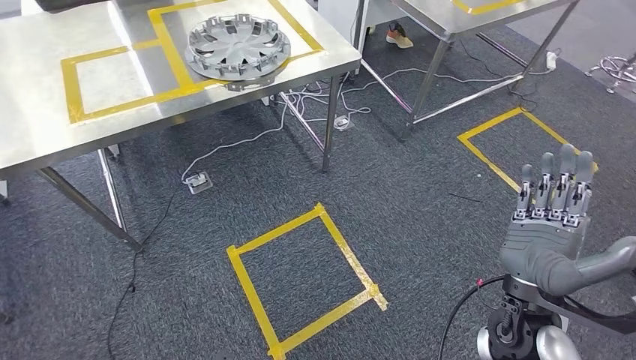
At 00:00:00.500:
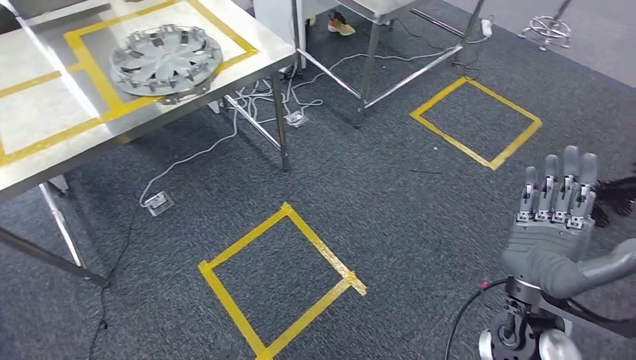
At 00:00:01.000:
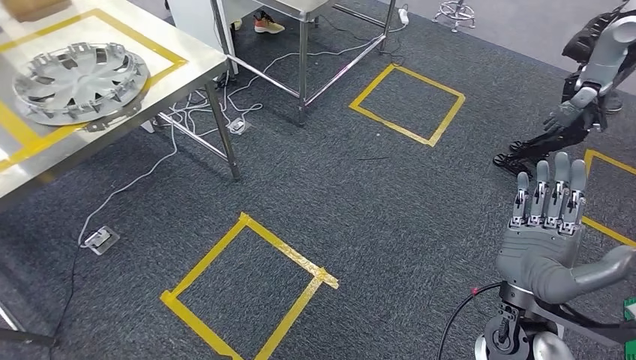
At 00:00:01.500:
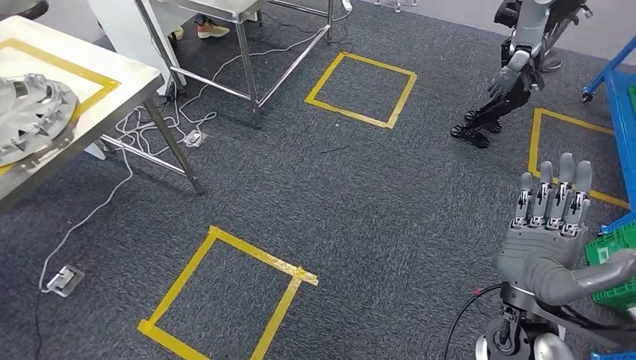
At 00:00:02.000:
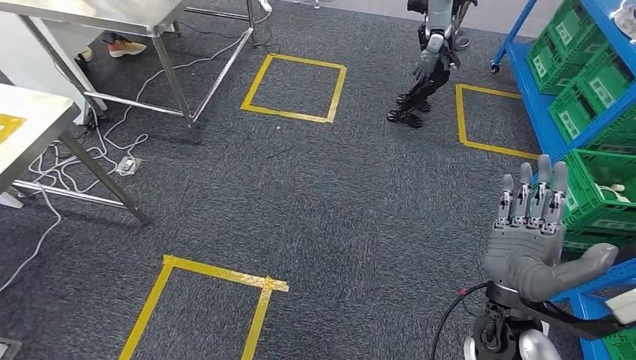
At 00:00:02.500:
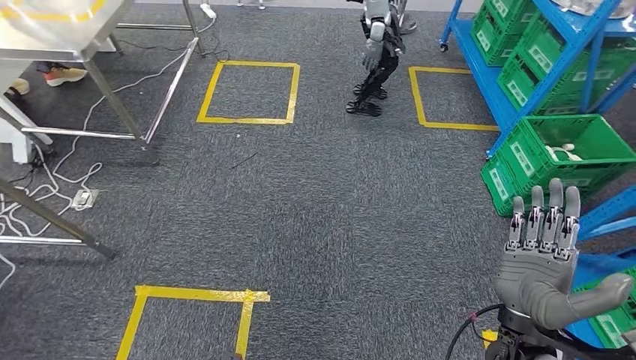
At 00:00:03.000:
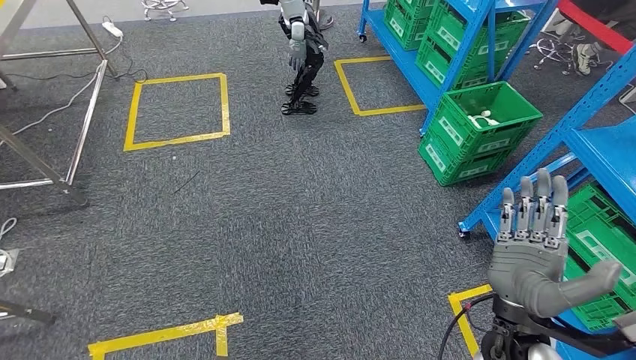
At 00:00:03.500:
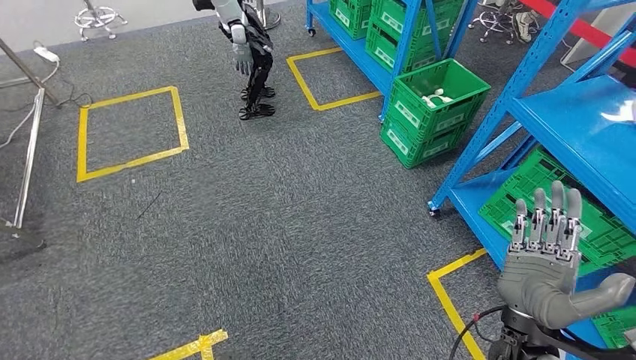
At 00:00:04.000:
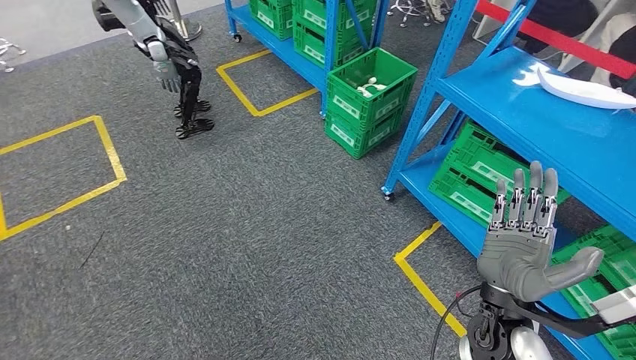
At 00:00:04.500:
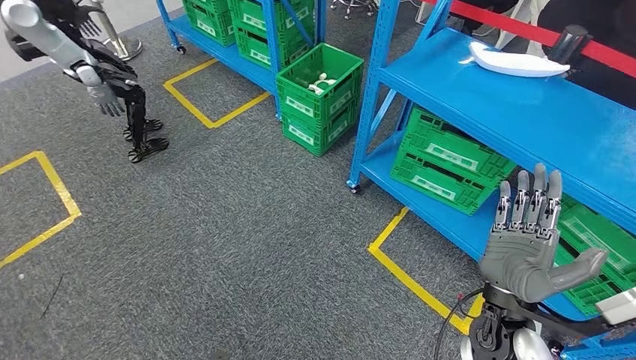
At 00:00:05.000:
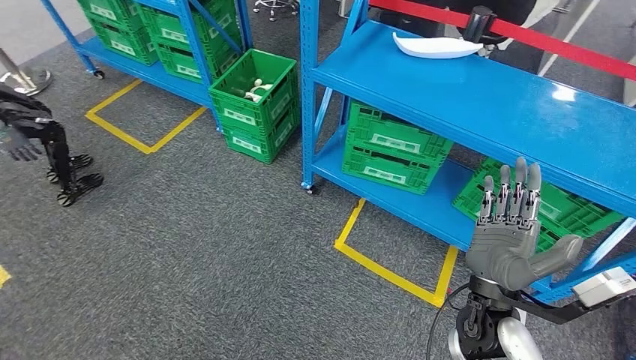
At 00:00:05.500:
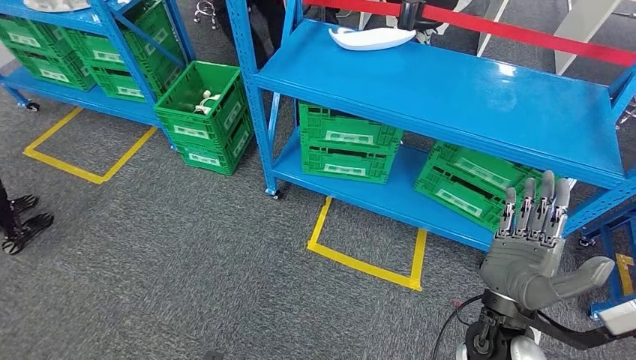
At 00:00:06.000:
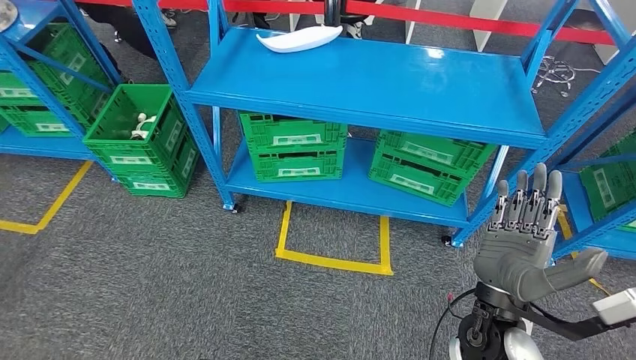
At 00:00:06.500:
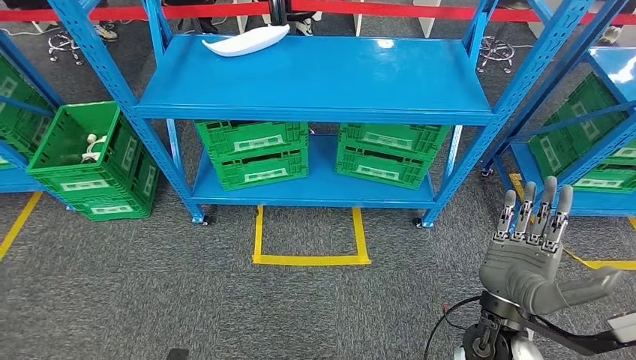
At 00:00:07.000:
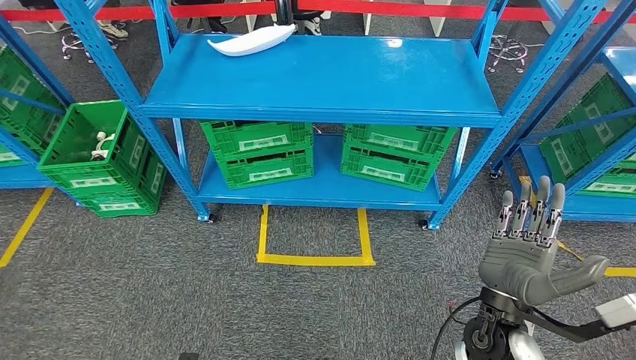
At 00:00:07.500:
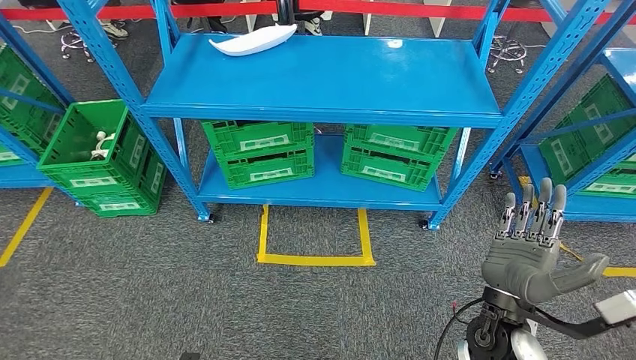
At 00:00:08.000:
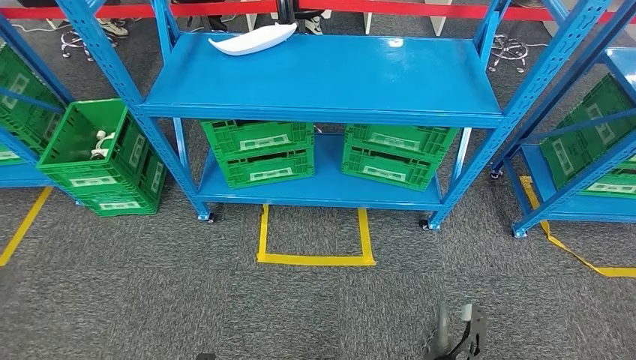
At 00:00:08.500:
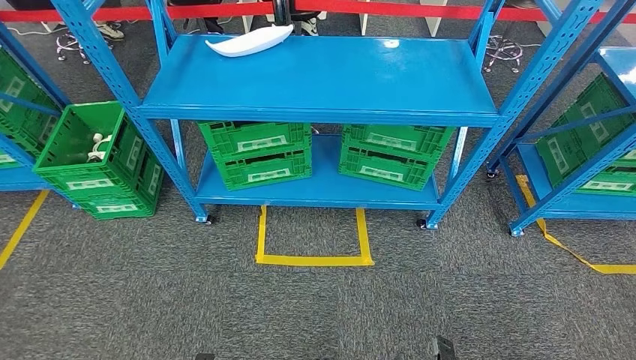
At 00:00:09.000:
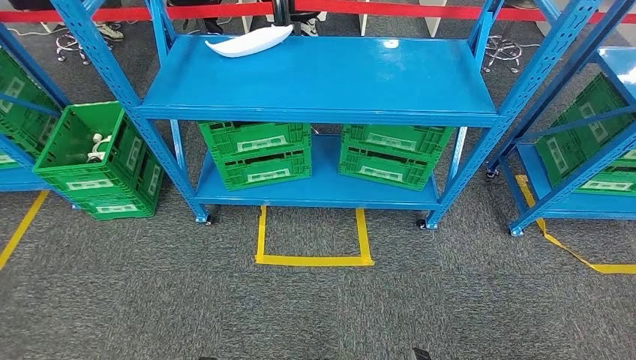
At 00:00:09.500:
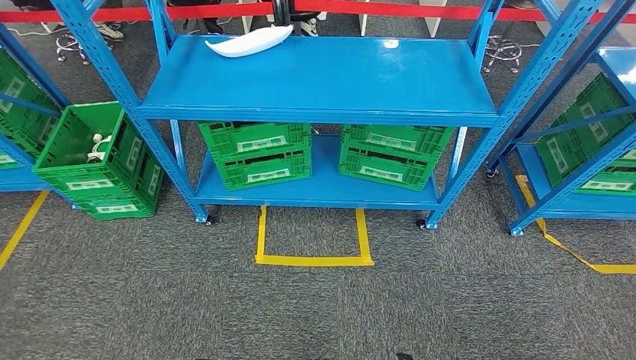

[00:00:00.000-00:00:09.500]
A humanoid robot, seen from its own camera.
Step, 00:00:00.000 to 00:00:09.500: Move to the initial position at the workbench.
00:00:07.500 to 00:00:09.500: The right hand moves downward and backward, approximately 30 cm.
